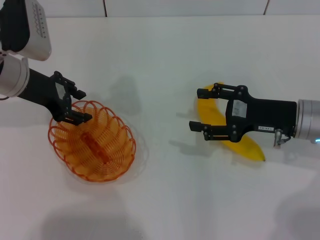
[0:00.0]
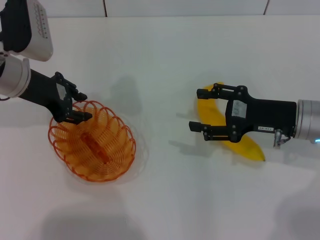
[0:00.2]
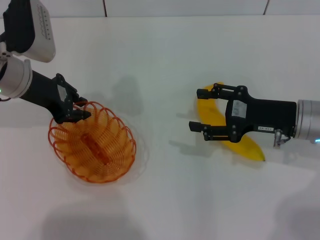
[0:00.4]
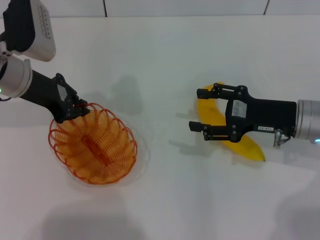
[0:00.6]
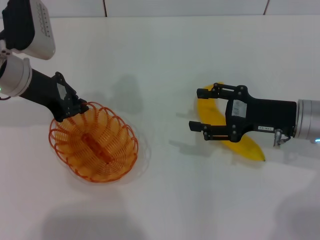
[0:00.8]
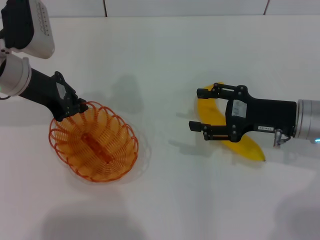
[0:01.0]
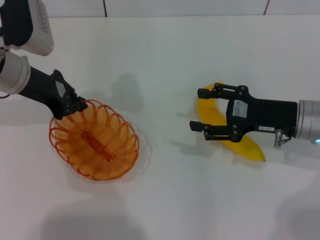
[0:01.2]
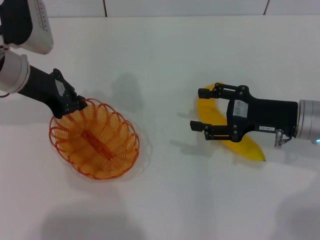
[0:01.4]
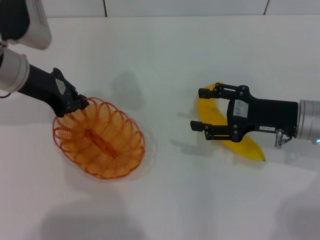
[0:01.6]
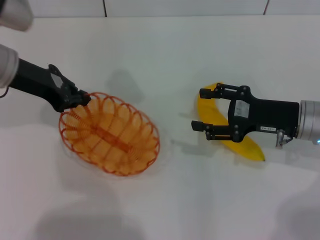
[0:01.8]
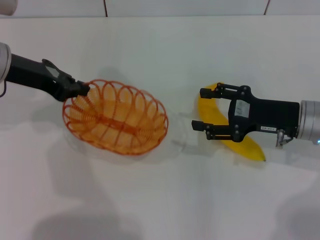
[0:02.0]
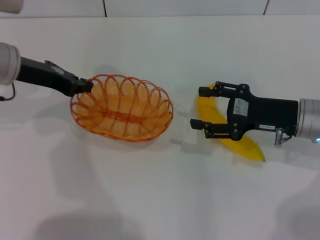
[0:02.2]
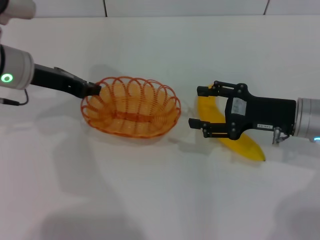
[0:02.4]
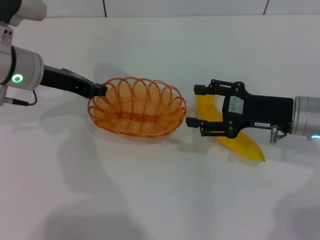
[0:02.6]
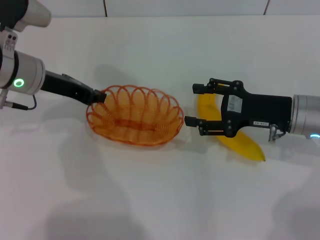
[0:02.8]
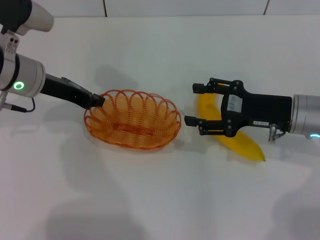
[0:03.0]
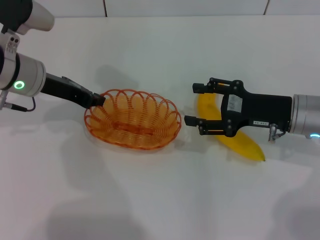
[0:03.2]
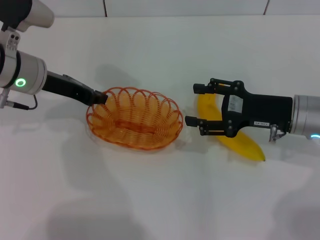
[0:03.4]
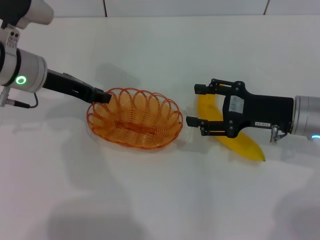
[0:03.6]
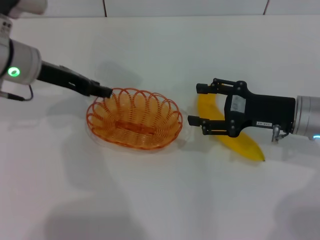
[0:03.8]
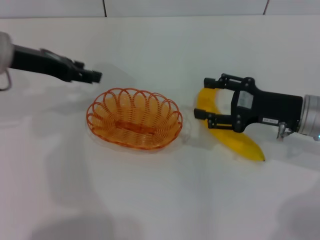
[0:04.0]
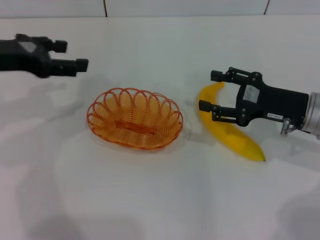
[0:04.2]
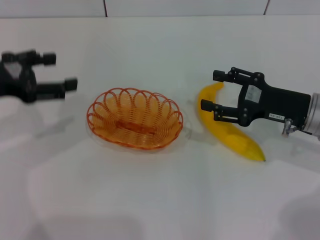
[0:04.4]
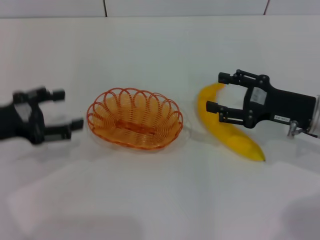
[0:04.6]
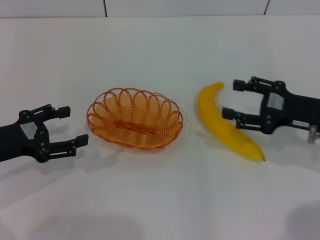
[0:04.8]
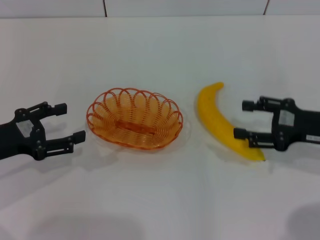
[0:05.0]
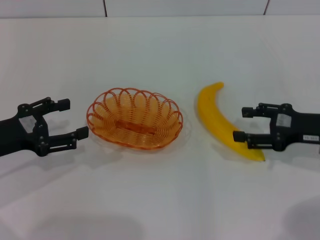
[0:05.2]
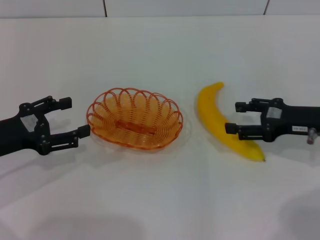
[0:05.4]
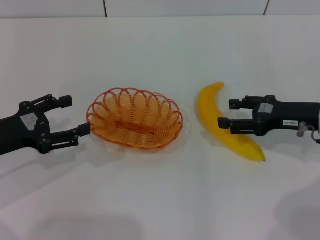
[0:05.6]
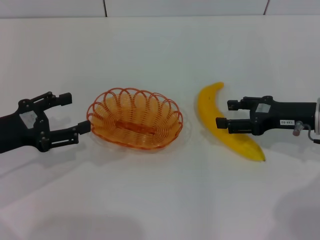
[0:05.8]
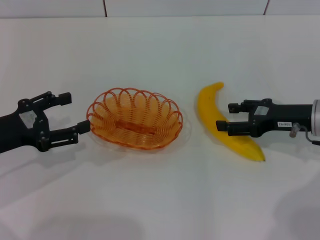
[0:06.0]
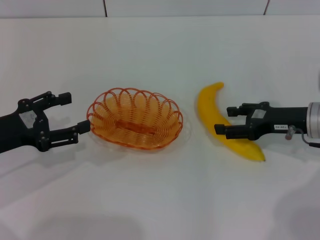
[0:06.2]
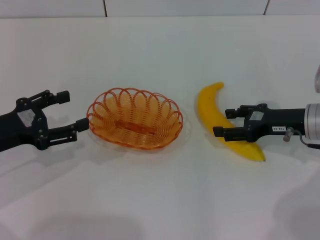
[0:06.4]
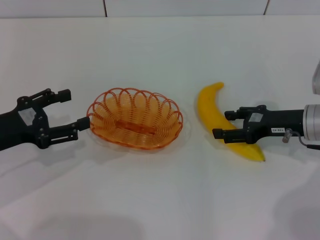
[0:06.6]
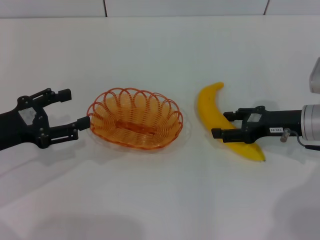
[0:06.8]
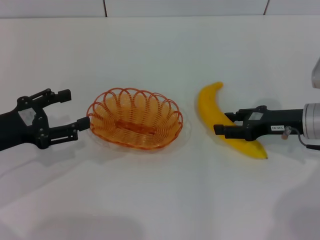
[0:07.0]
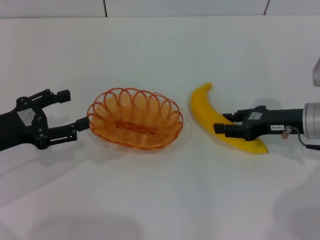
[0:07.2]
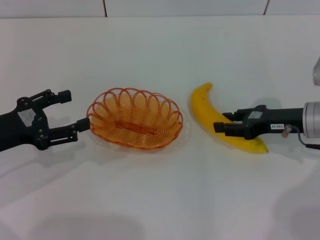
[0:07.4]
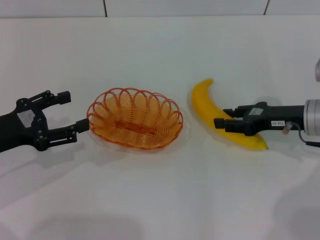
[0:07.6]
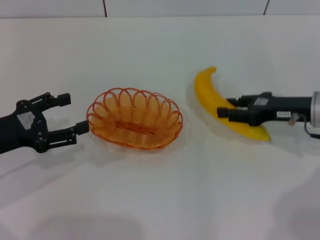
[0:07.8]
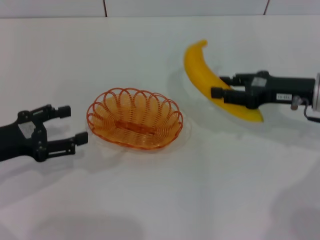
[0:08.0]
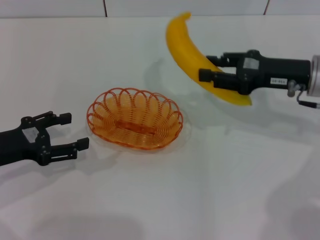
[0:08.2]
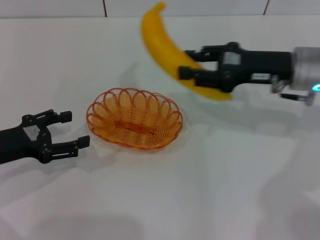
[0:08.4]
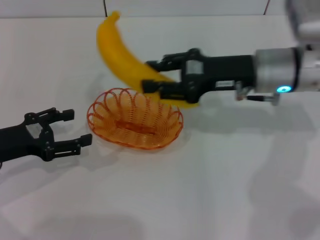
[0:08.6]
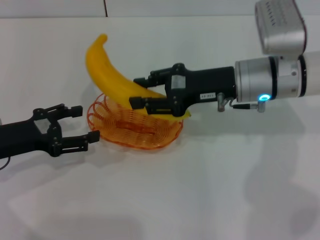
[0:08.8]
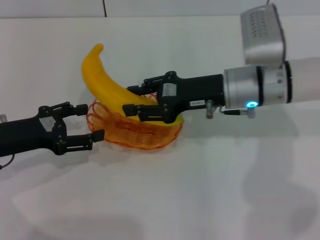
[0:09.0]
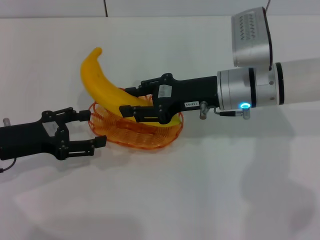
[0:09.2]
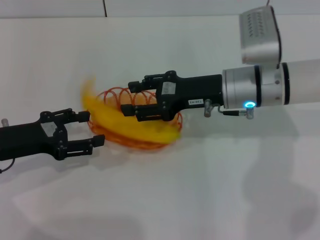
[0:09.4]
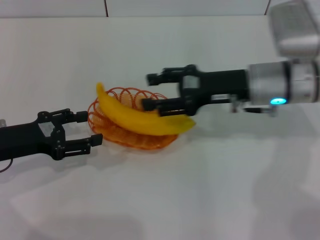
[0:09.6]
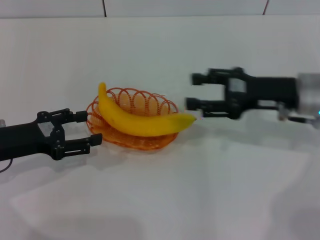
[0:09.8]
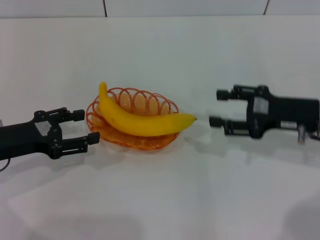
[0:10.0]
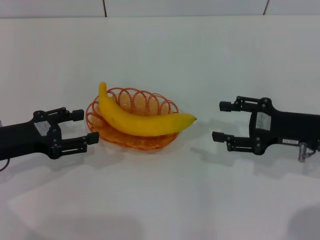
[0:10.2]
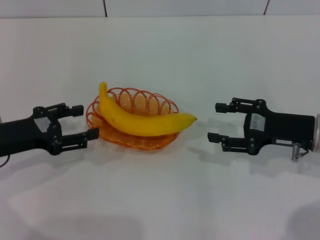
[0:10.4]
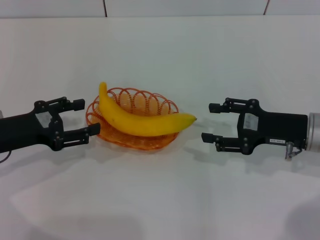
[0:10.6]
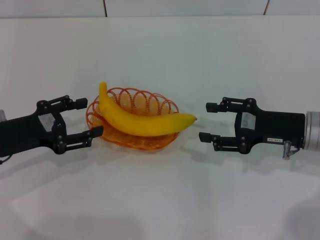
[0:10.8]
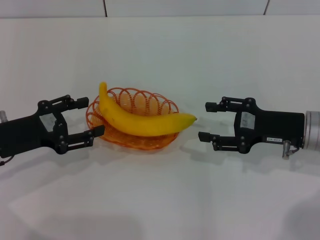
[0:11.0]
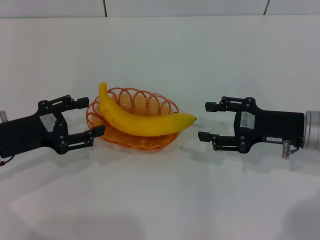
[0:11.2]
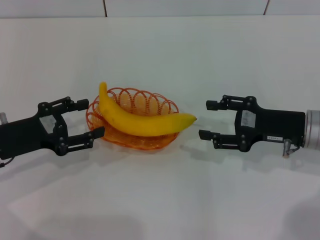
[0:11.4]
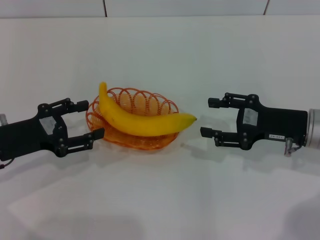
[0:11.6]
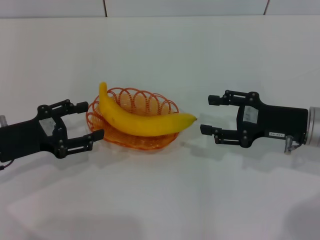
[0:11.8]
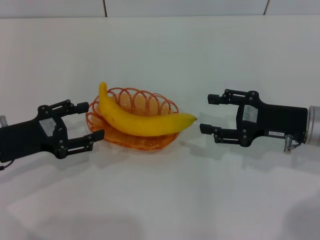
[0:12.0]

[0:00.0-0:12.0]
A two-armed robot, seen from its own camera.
Step, 0:00.0 to 0:03.8: Place the basket in the center of view with the left gripper.
Step, 0:04.0 to 0:07.4: Pick up the banana with the right gripper.
Step, 0:07.8 to 0:09.6: Place the banana into the basket with the right gripper.
0:00.0 to 0:01.6: The left gripper closes up.
0:03.0 to 0:04.4: The left gripper is displaced to the left and backward by roughly 10 cm, and opens its fingers.
0:04.4 to 0:06.0: The left gripper travels downward by roughly 10 cm.
0:06.0 to 0:07.6: The right gripper closes up.
0:07.6 to 0:09.0: The right gripper shifts about 15 cm to the left.
0:09.0 to 0:10.4: The right gripper travels to the right and backward by approximately 15 cm, and opens.
0:10.4 to 0:12.0: The grippers make only small movements.
